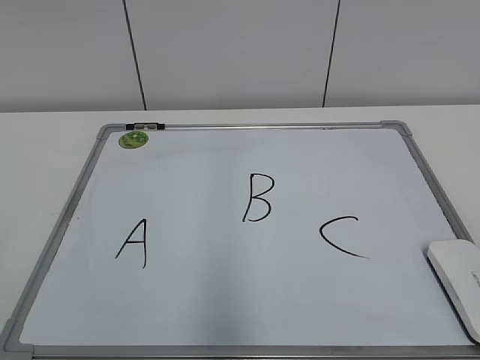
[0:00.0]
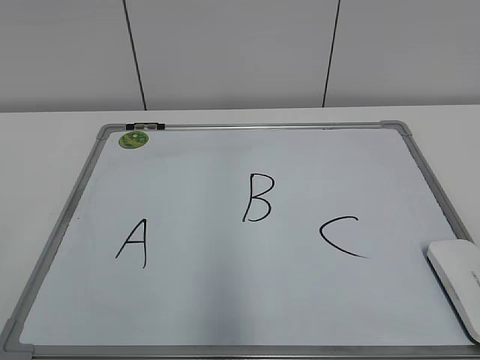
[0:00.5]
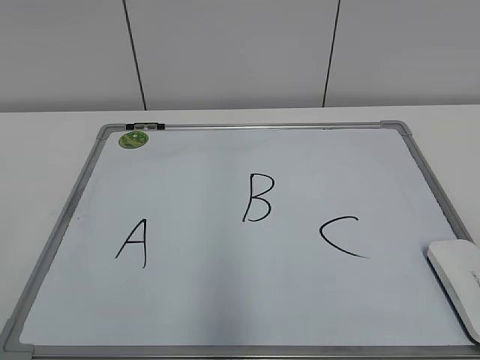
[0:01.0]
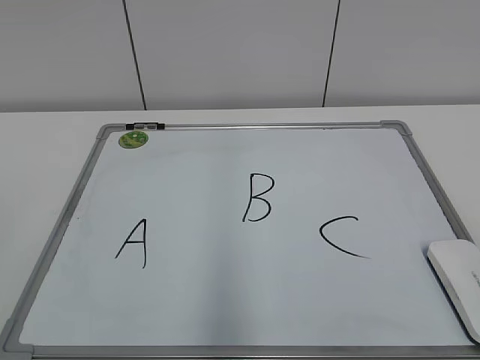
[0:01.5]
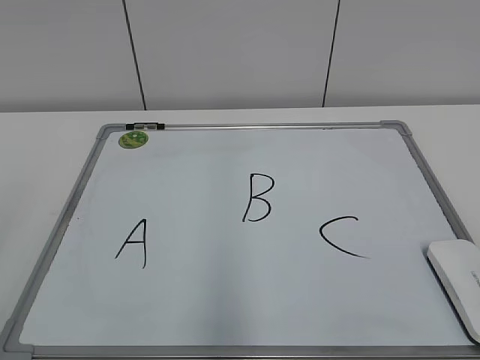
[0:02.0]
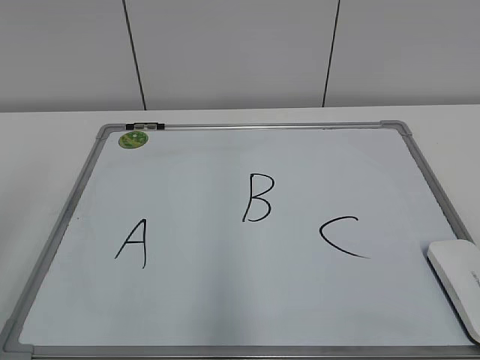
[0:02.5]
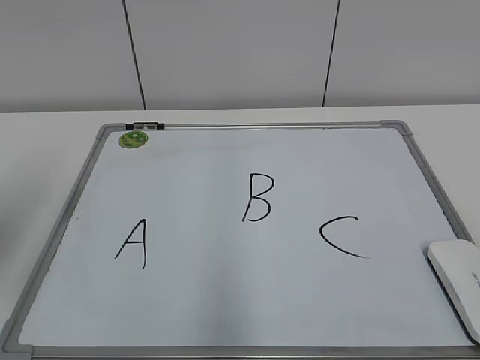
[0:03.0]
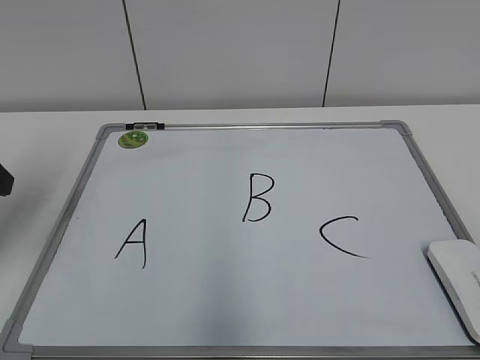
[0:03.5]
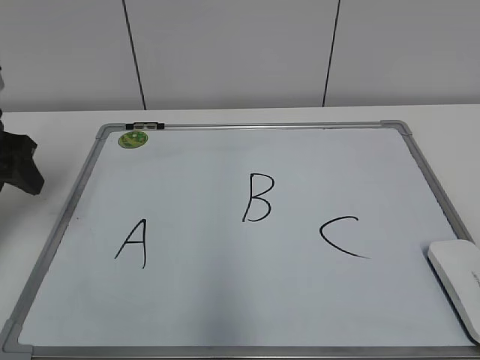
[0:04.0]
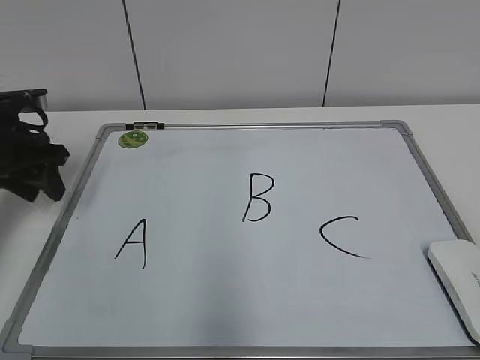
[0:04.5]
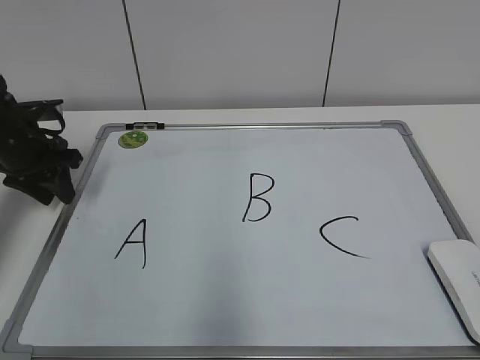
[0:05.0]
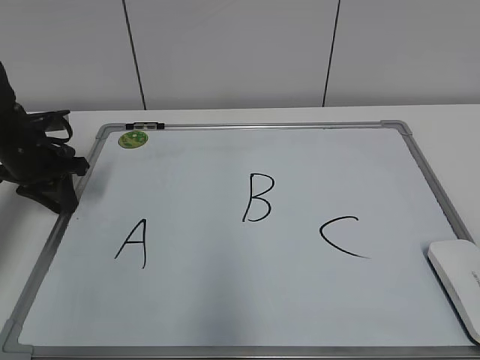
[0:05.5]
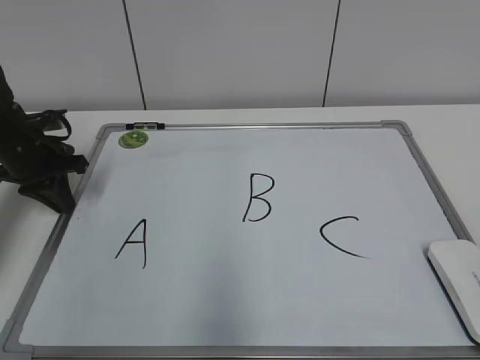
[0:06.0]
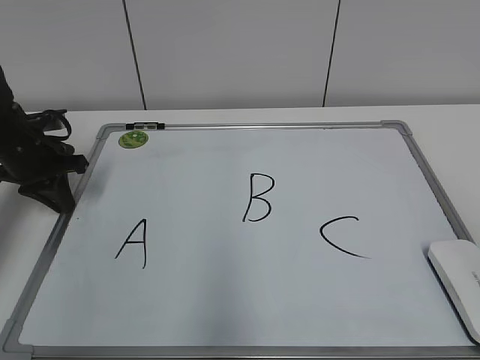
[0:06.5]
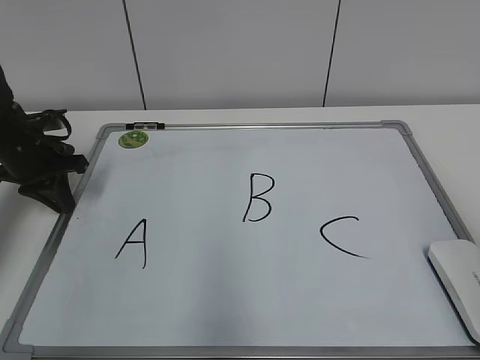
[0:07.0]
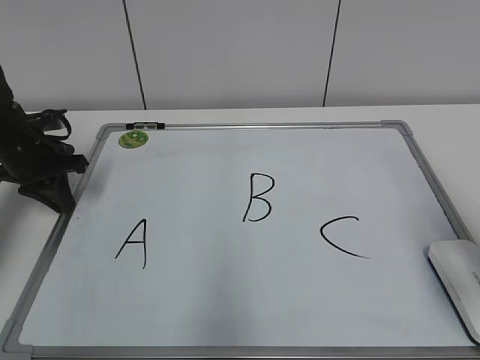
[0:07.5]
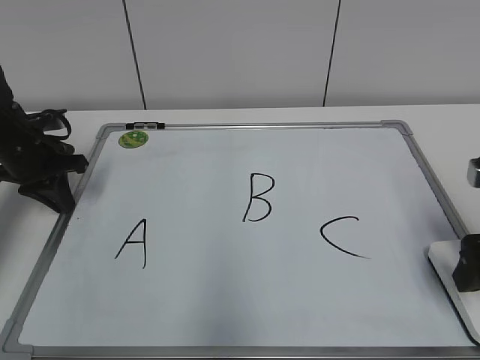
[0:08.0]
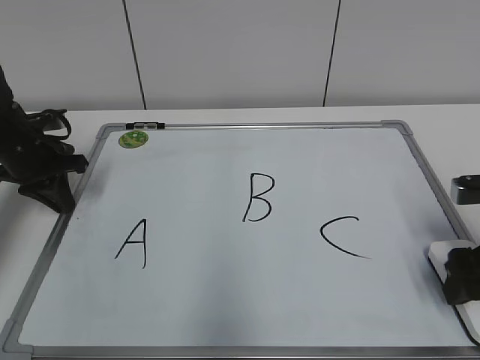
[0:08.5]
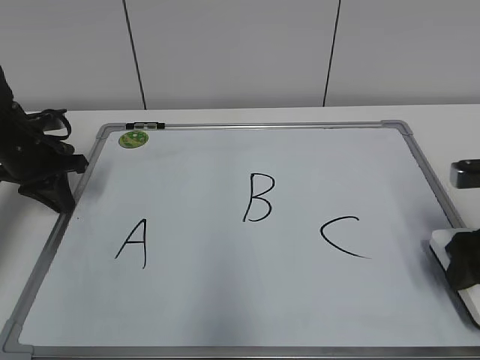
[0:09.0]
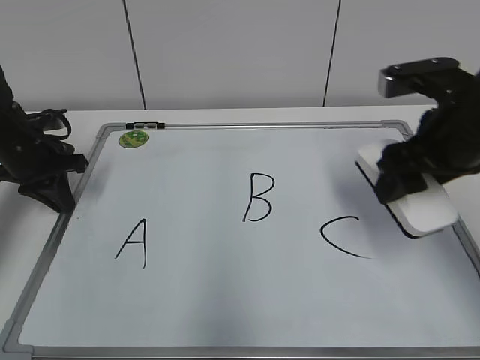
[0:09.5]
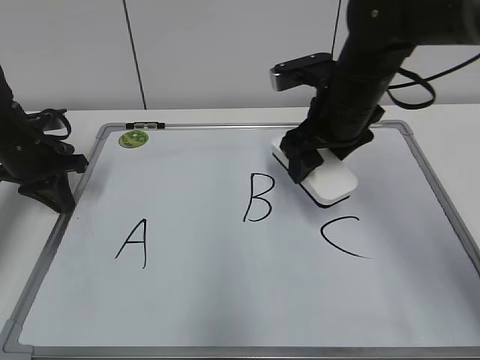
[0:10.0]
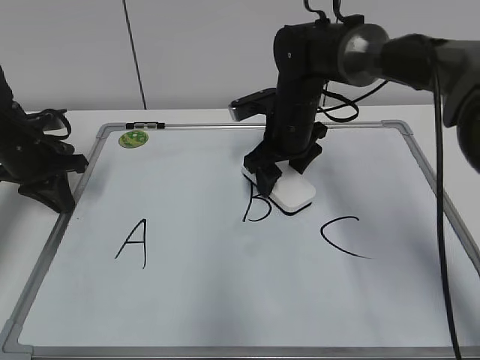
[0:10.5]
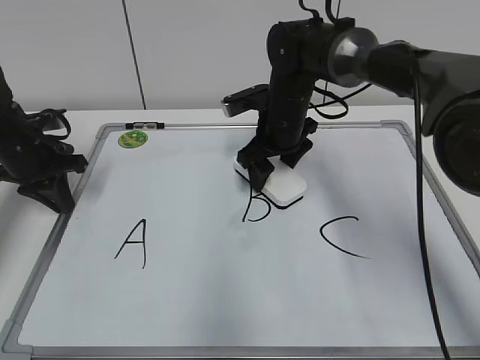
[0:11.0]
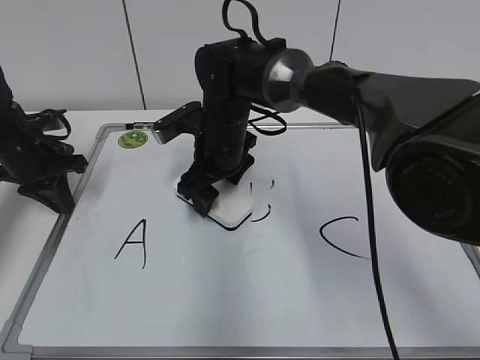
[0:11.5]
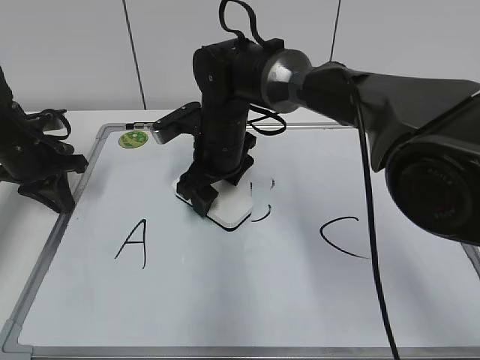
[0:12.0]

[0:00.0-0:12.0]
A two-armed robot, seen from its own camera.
Task of the whole recording: pick up the eraser on the blackboard and erase the letter "B".
Step, 0:00.0 to 0:05.5: Hold the drawing board steady with your left hand.
Step, 0:06.0 to 0:08.5: Grab the eraser with your right hand.
0:02.0 to 0:04.0: The left gripper goes about 30 cm forward and downward.
0:04.0 to 0:06.0: The left gripper is displaced downward and forward by about 15 cm, and closes.
0:06.0 to 0:08.0: The right gripper travels forward by about 25 cm, and opens its fingers.
0:08.0 to 0:10.0: The right gripper heads to the left and forward, covering approximately 25 cm, and closes.
0:10.0 to 0:12.0: The right gripper moves to the left and downward, some 15 cm.

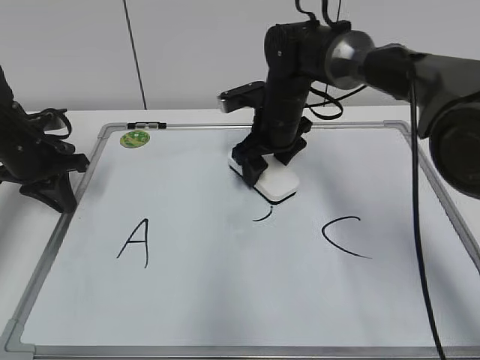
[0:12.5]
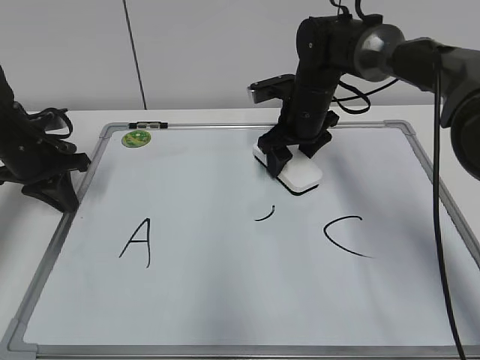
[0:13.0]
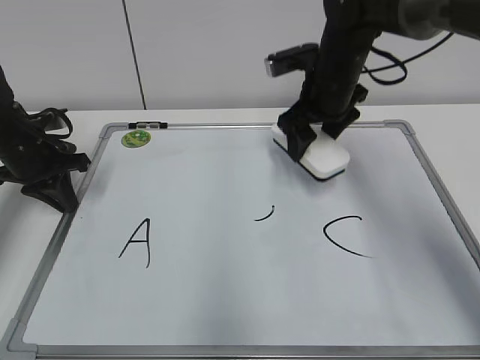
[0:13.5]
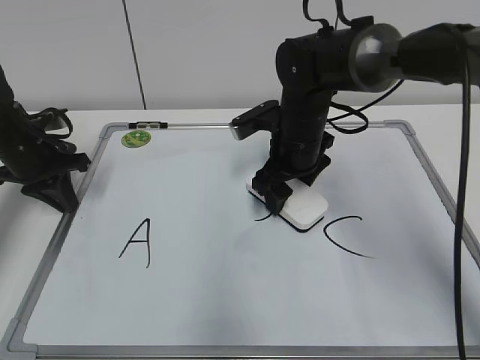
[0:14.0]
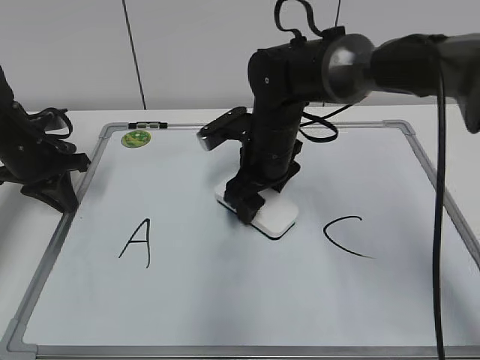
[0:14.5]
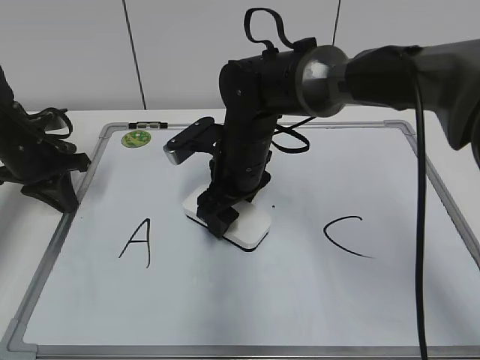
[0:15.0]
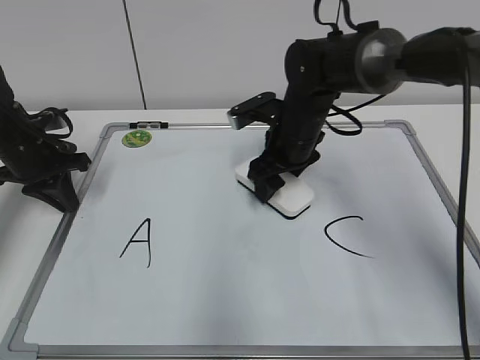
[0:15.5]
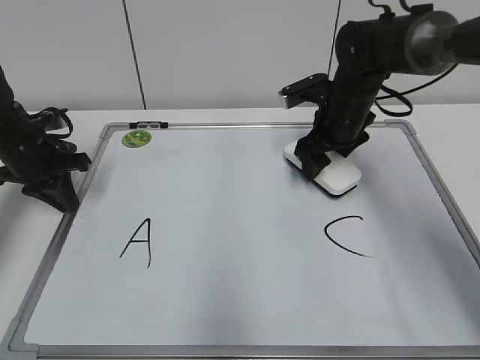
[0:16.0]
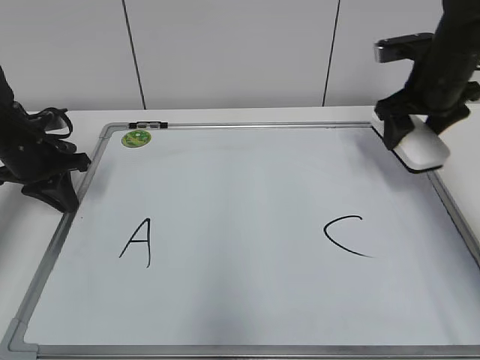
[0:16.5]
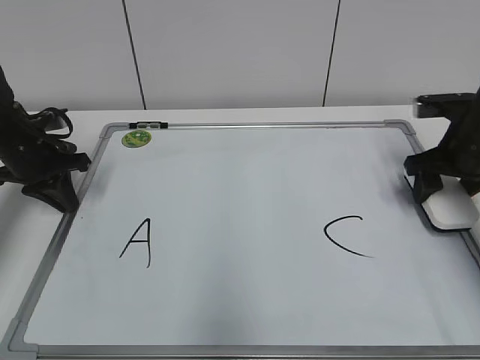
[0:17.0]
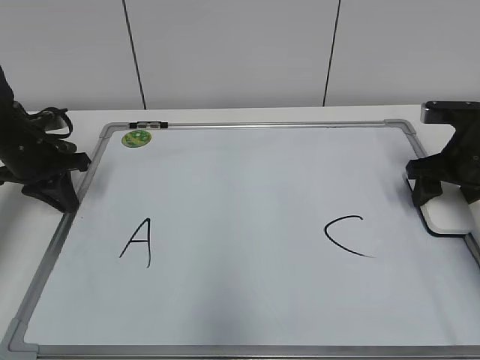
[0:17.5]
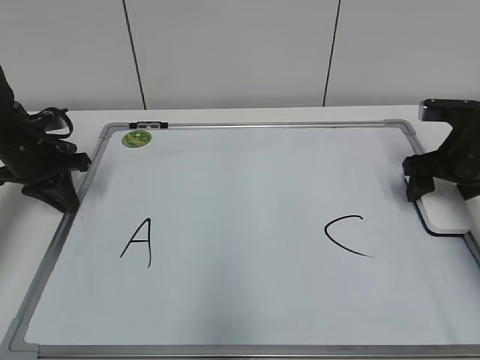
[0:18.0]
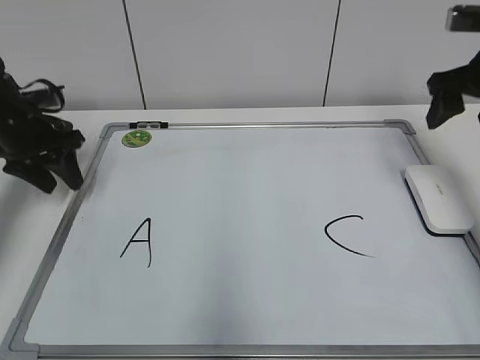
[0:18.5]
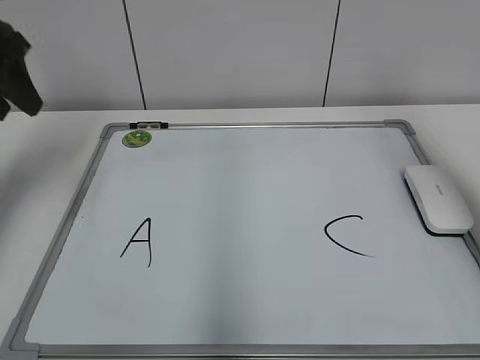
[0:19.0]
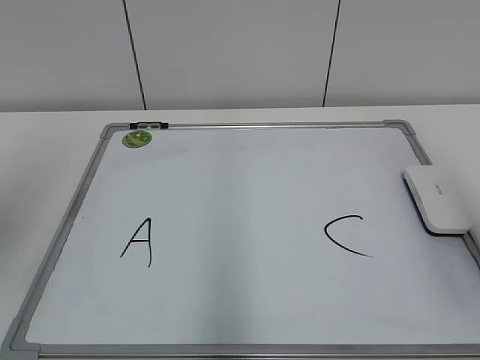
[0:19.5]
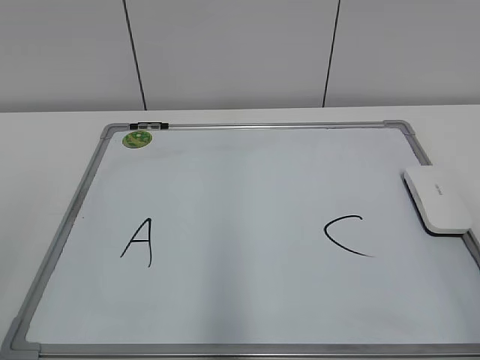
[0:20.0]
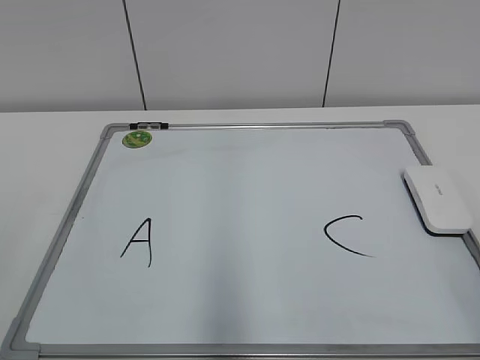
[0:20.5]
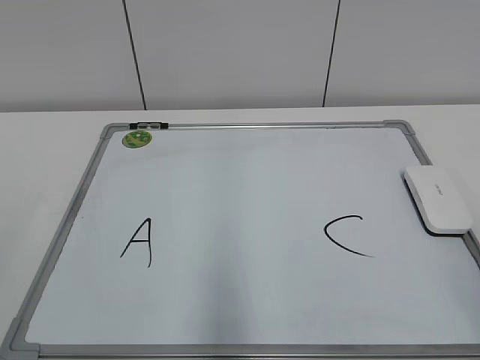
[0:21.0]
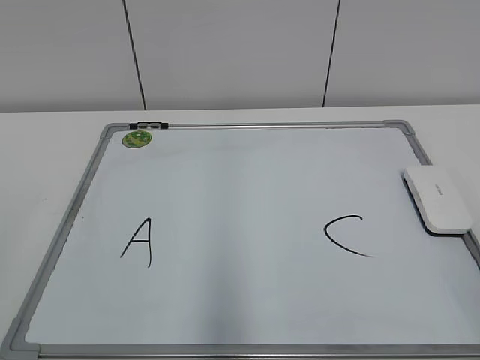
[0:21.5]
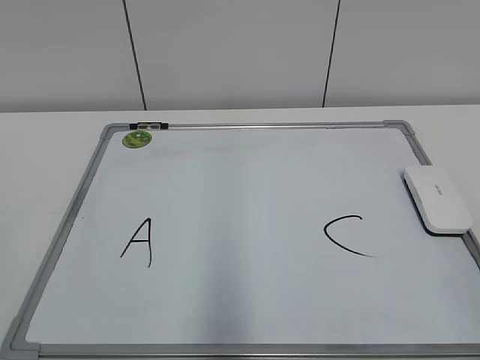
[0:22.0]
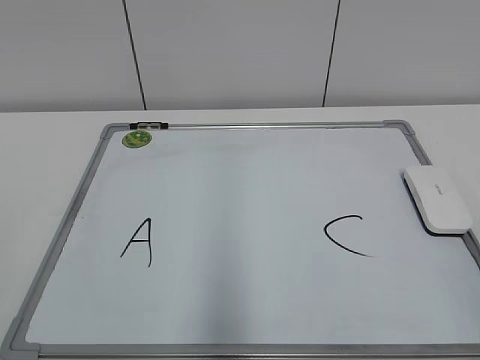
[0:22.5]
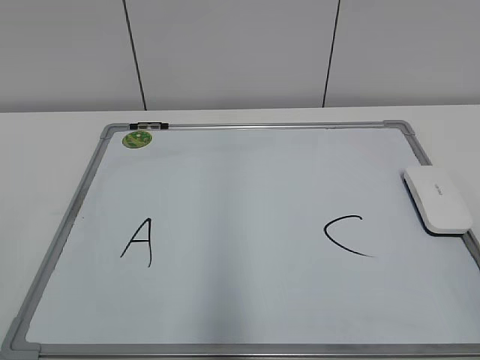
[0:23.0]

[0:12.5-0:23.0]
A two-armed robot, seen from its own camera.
Task of the whole recording: pick up the eraser on the blackboard and erase the letter "B".
Step, 0:12.5 to 0:16.0: Erase the letter B with your right hand.
Step, 0:16.5 to 0:17.0: Put down the eraser with your right hand.
0:12.5 to 0:14.5: The right gripper moves backward, approximately 5 cm.
0:14.5 to 0:16.5: The right gripper goes roughly 20 cm to the right.
0:16.5 to 0:19.0: The left gripper shifts approximately 20 cm upward, and opens up. The right gripper goes approximately 20 cm backward and upward.
0:19.0 to 0:21.0: The right gripper is displaced backward and downward by about 25 cm, and closes; the left gripper travels backward by about 30 cm.

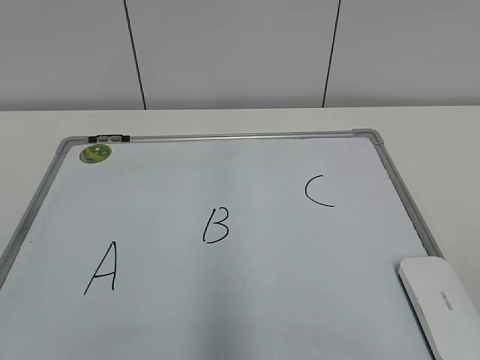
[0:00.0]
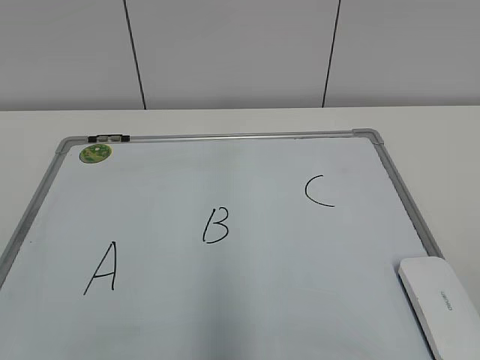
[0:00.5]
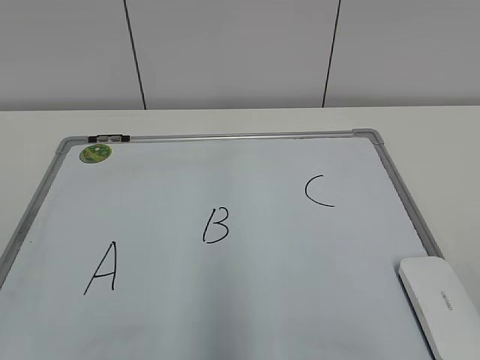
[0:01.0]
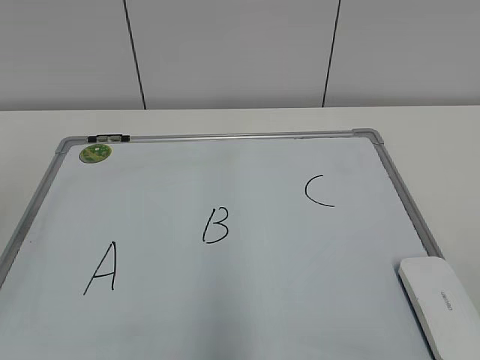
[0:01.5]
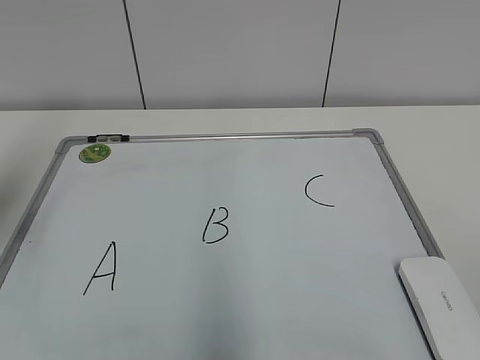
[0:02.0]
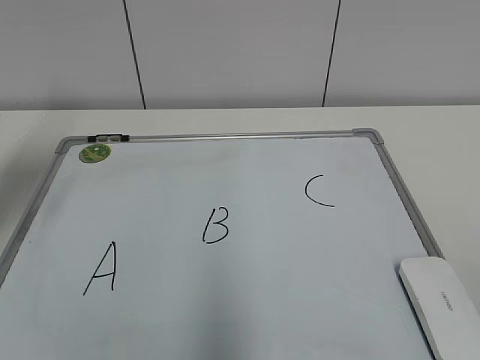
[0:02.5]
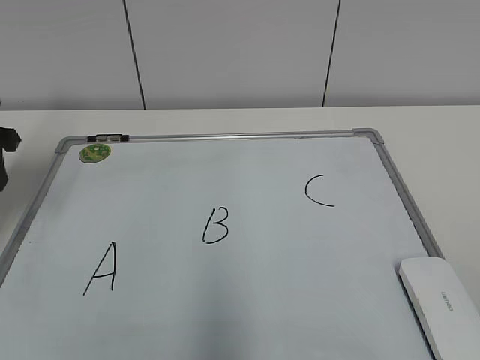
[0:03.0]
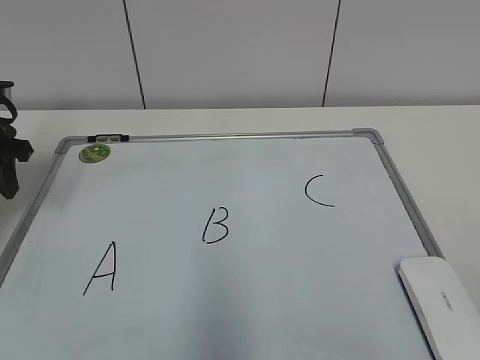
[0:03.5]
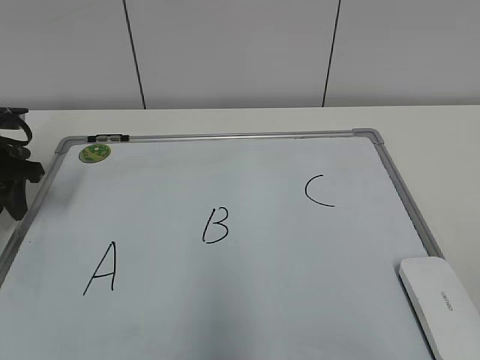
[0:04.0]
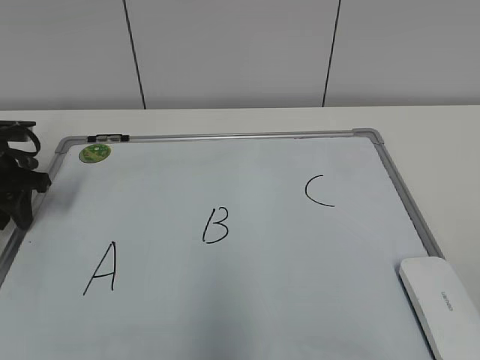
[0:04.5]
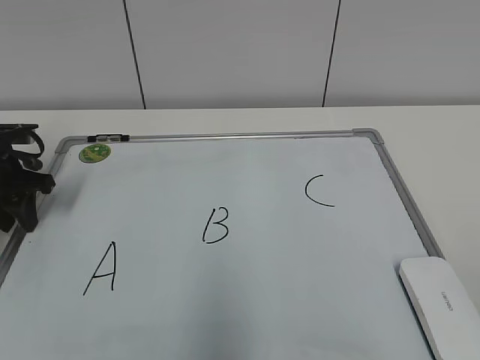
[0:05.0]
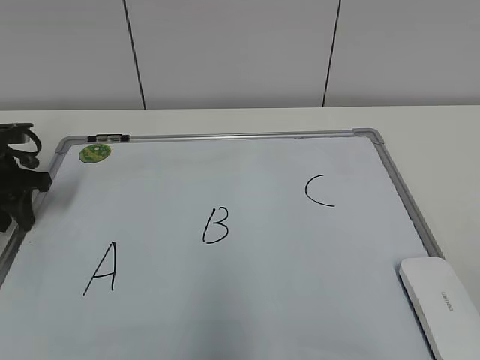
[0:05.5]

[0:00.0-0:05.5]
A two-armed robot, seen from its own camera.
Task of the whole recording: pick up the eraser on the blackboard and erase the letter "B".
0:02.0 to 0:03.5: The left gripper goes approximately 20 cm downward and forward.
0:03.5 to 0:05.5: The left gripper is displaced downward by approximately 5 cm.
